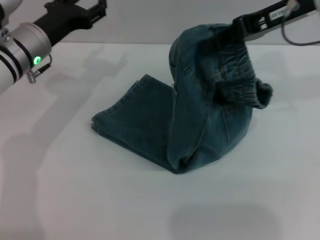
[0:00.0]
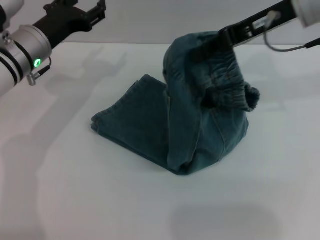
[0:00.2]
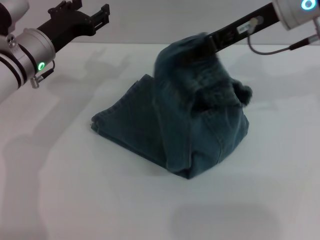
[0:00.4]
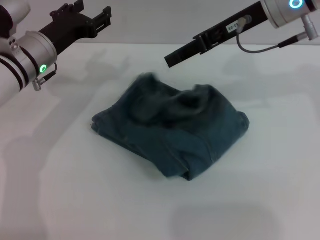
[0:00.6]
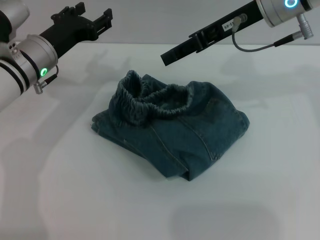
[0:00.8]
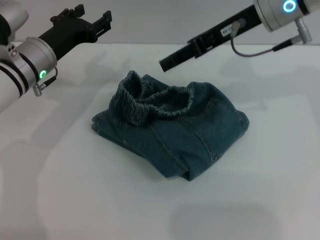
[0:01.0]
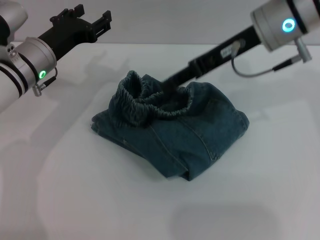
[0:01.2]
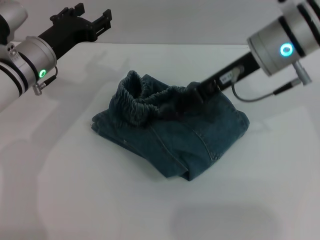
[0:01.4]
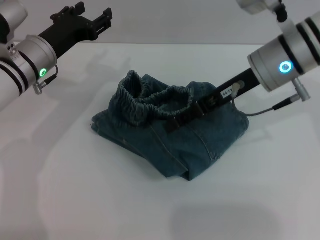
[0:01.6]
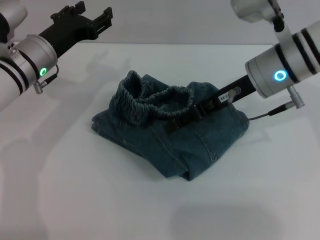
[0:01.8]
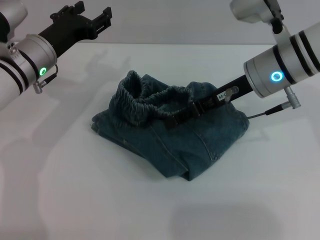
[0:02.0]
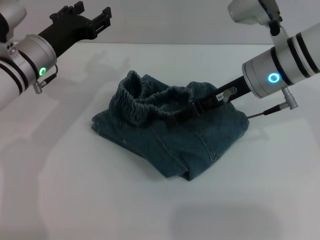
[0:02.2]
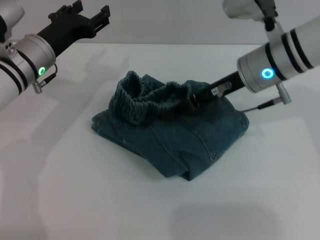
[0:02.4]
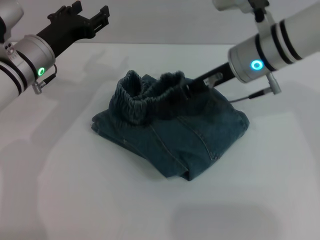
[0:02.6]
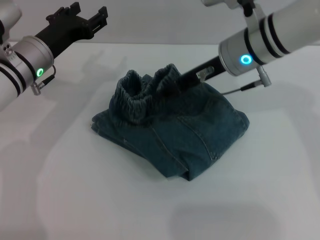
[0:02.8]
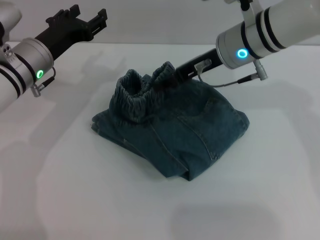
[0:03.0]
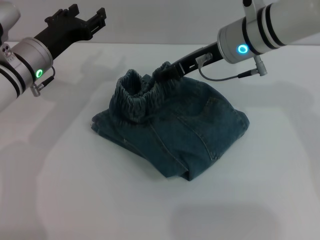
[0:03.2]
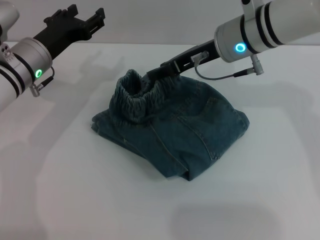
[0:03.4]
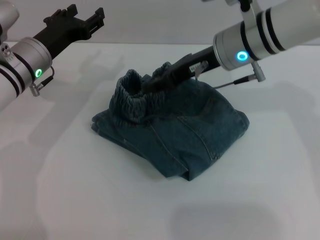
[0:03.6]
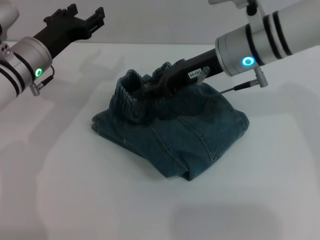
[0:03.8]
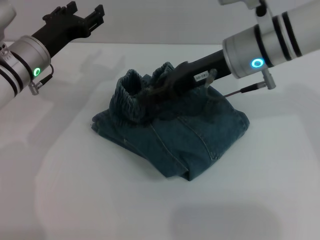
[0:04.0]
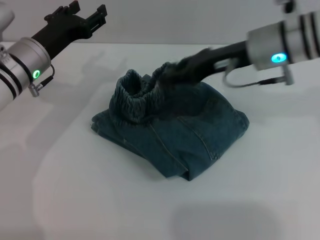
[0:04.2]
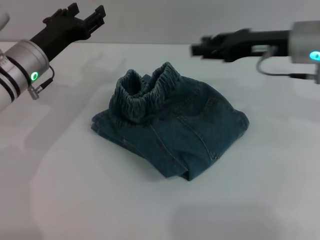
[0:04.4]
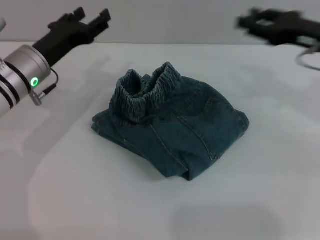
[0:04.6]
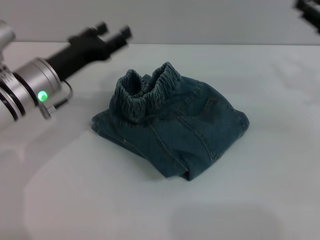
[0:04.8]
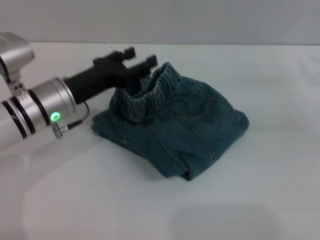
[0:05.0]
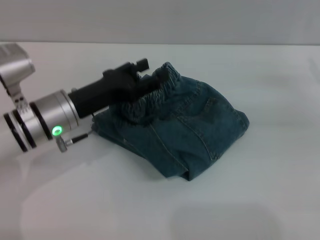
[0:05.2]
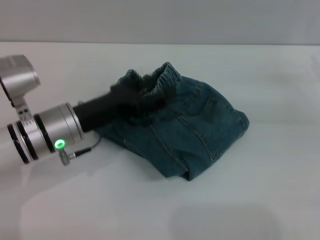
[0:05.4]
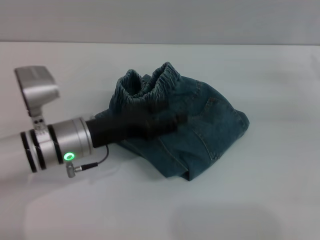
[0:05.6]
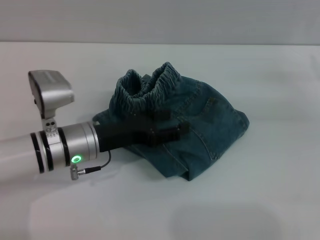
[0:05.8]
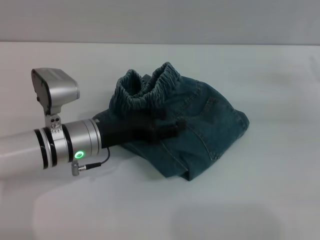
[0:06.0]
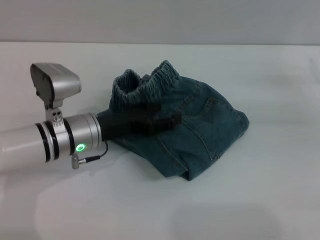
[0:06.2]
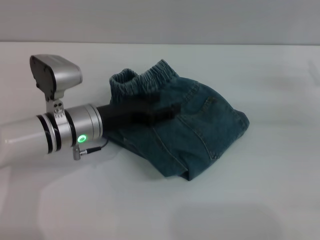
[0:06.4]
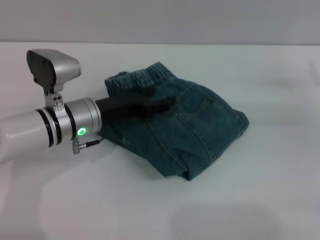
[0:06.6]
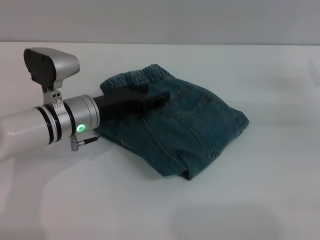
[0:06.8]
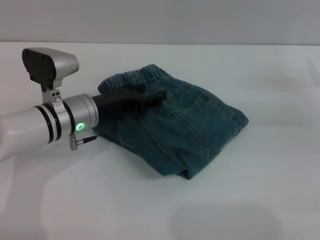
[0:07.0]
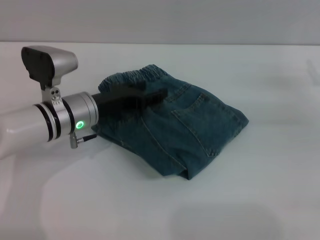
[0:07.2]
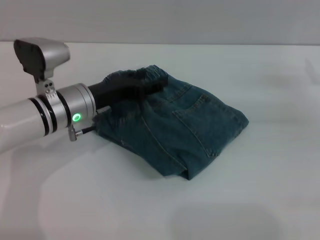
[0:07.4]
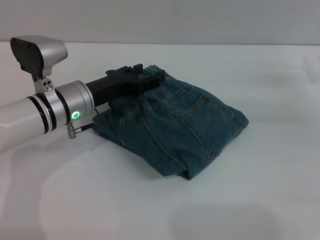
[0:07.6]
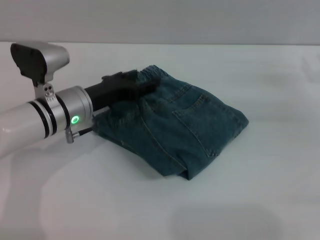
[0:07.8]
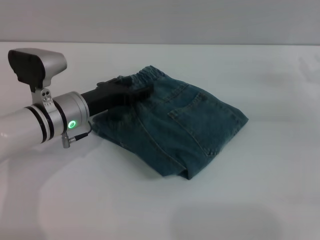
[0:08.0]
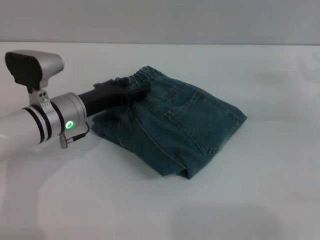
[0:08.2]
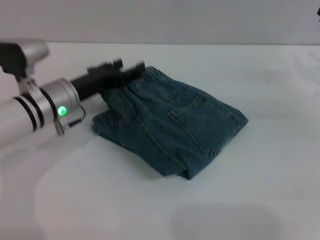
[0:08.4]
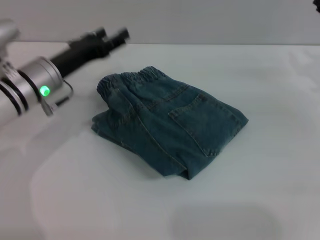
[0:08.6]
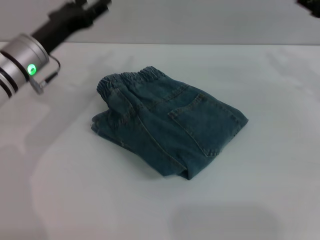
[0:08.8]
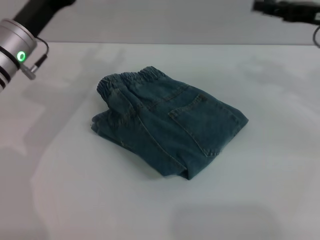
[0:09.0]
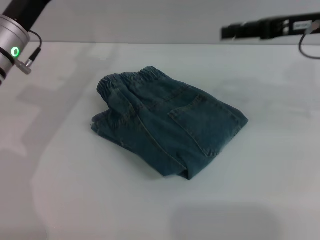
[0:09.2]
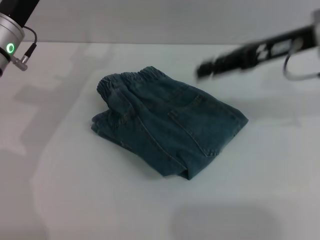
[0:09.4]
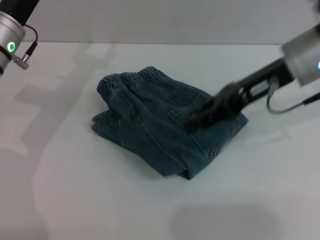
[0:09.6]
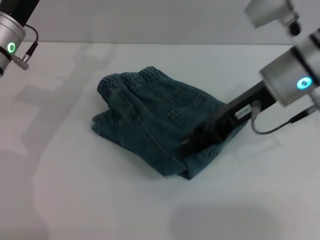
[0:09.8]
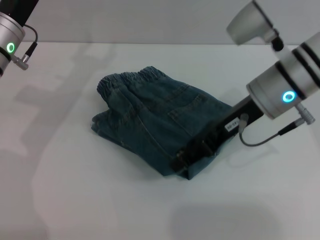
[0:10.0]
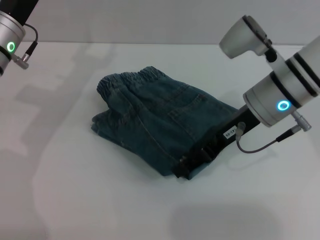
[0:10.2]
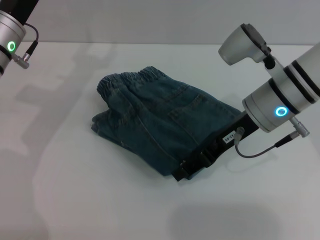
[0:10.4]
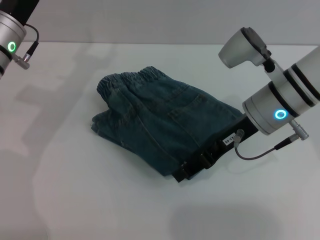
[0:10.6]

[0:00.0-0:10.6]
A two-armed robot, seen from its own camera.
Step, 0:00.0 to 0:04.4: Fold the pants from right to left with the right gripper.
0:00.0 to 0:01.6: The right gripper heads downward and to the left, covering some 10 cm, and opens its fingers.
0:01.6 to 0:03.0: The right gripper shifts by approximately 5 cm.
0:03.0 to 0:04.6: The right gripper goes about 15 cm to the right.
0:04.6 to 0:06.0: The right gripper travels to the right by some 10 cm. The left gripper travels backward, to the right and downward by about 10 cm.
0:06.0 to 0:07.6: The left gripper shifts by roughly 5 cm.
0:07.6 to 0:09.0: The right gripper travels upward and to the left by some 10 cm; the left gripper shifts some 10 cm to the left and upward.
0:09.0 to 0:10.6: The right gripper travels to the left by about 15 cm.

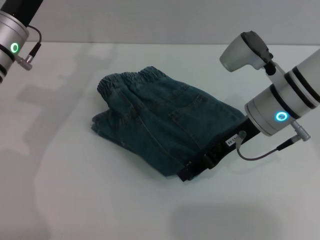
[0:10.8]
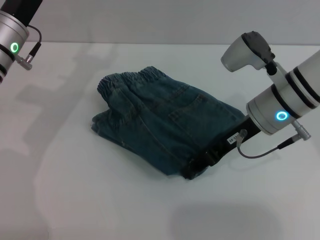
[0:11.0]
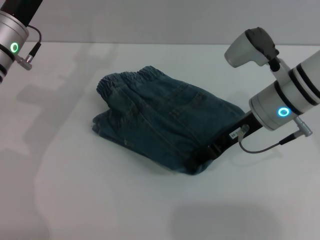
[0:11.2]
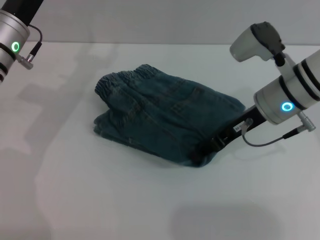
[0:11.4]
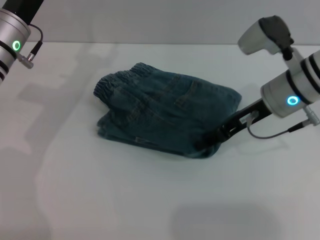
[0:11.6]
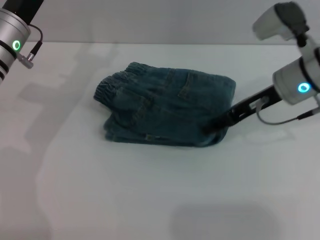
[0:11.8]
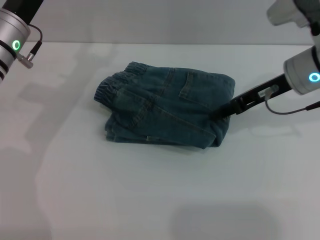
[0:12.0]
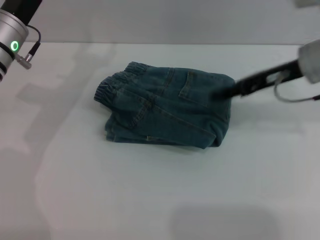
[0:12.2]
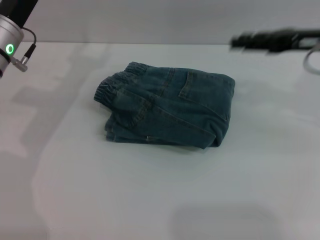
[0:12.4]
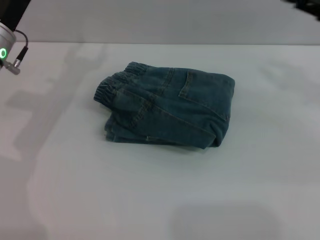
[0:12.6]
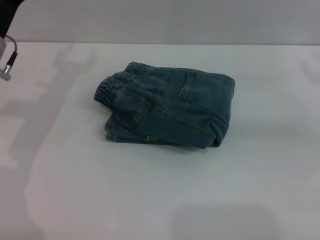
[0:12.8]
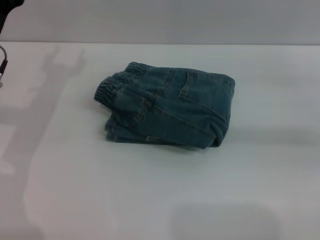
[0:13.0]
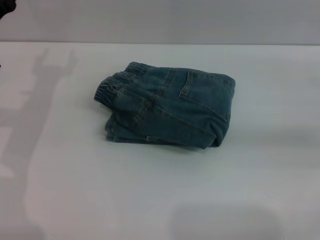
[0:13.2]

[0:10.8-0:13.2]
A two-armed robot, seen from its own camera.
0:10.8 to 0:12.0: The right gripper moves to the right, some 5 cm.
0:12.0 to 0:13.2: The left gripper ends up some 5 cm from where it was, while the right gripper shifts about 20 cm to the right.
